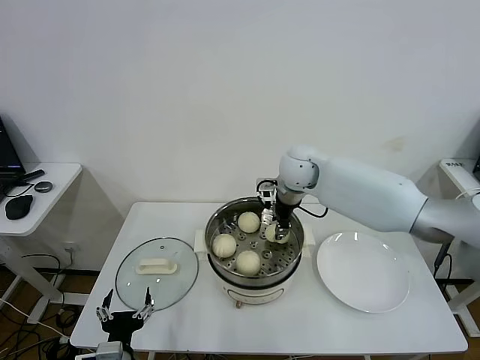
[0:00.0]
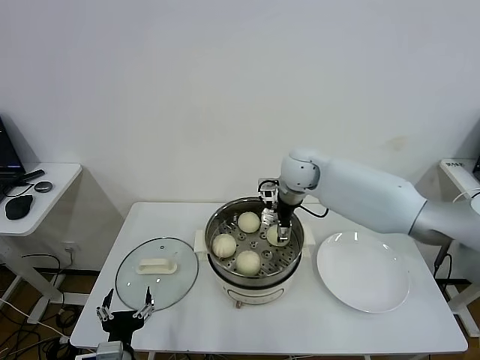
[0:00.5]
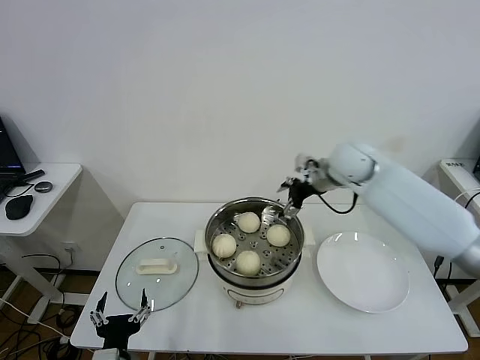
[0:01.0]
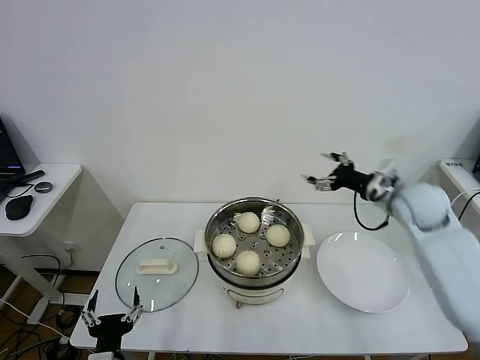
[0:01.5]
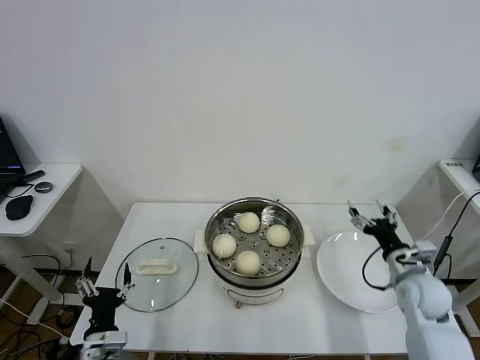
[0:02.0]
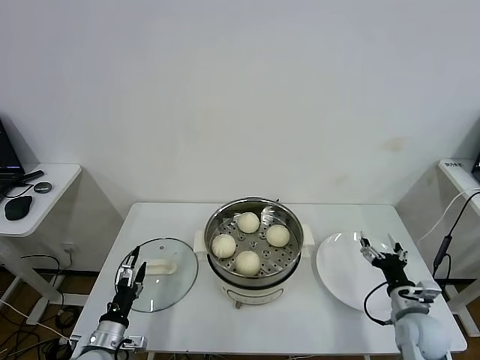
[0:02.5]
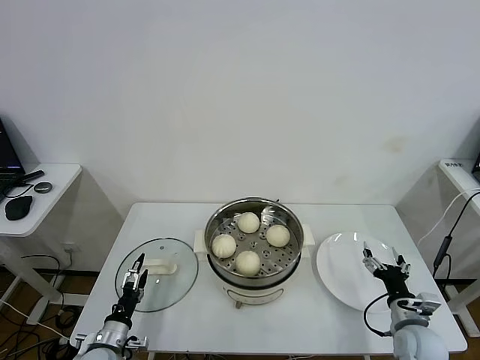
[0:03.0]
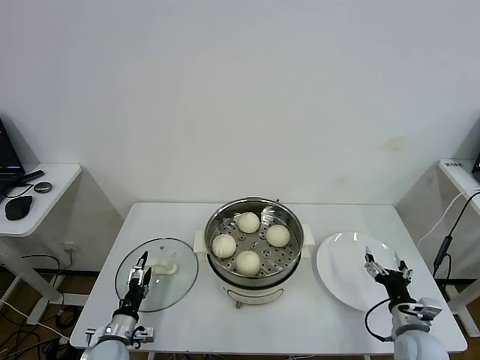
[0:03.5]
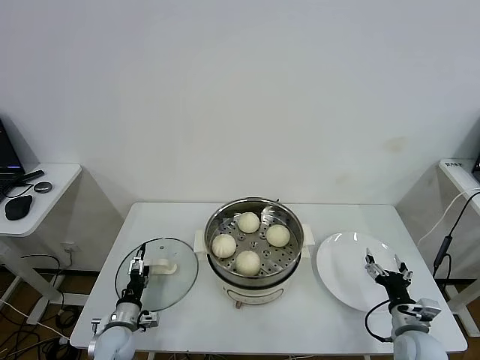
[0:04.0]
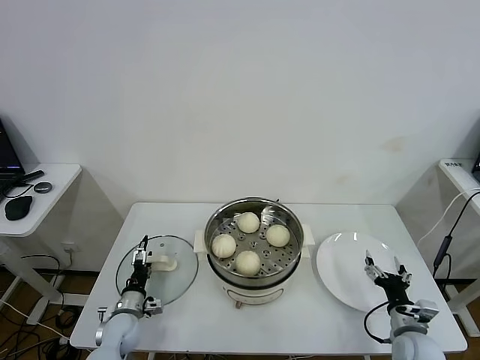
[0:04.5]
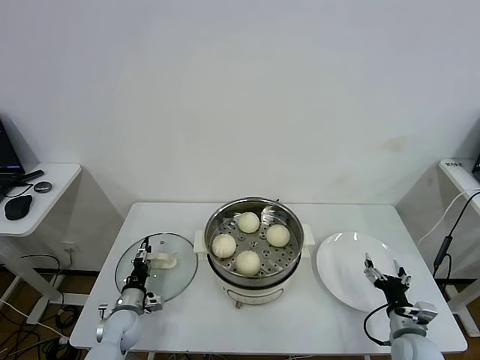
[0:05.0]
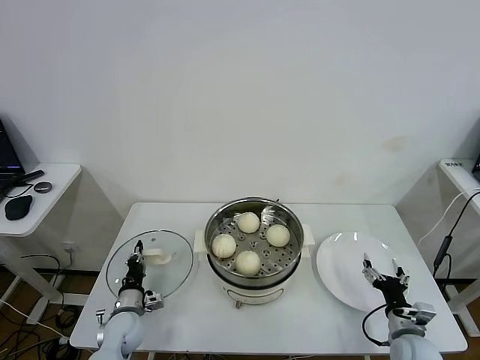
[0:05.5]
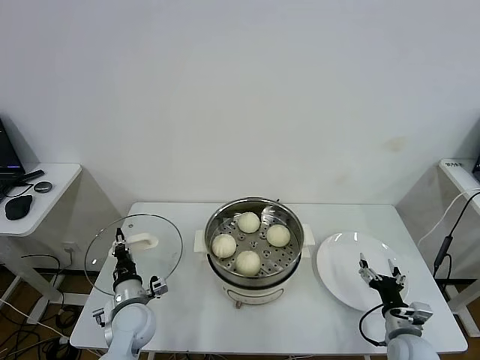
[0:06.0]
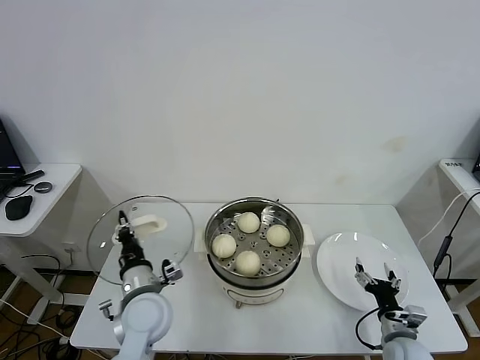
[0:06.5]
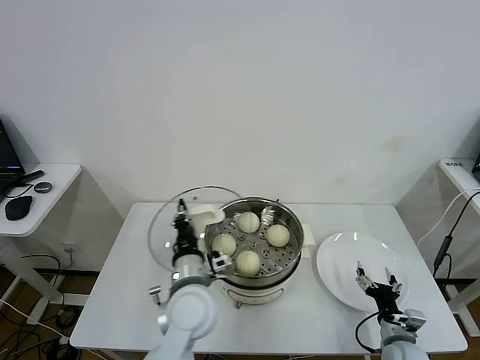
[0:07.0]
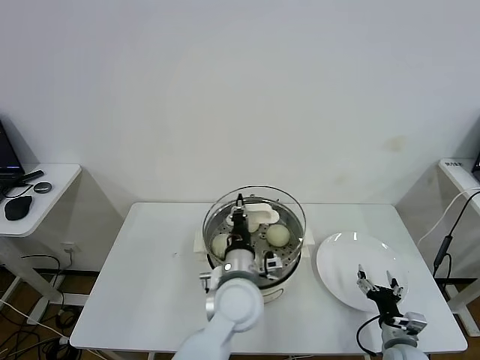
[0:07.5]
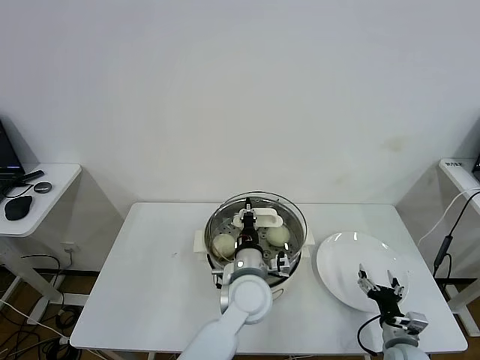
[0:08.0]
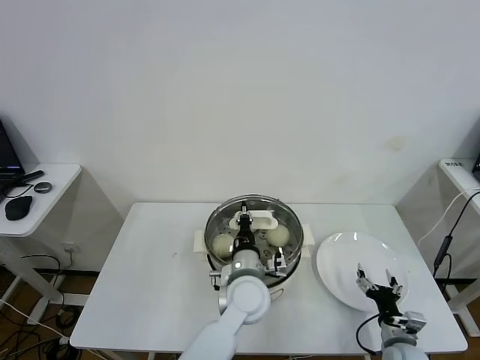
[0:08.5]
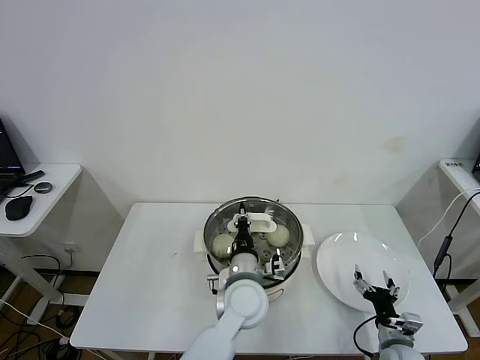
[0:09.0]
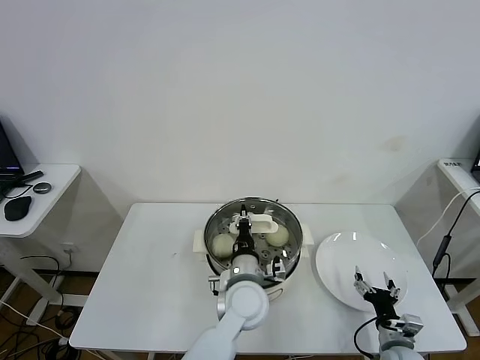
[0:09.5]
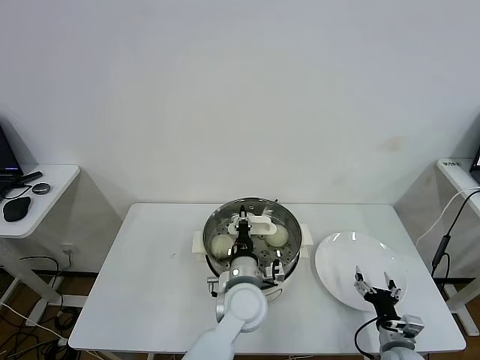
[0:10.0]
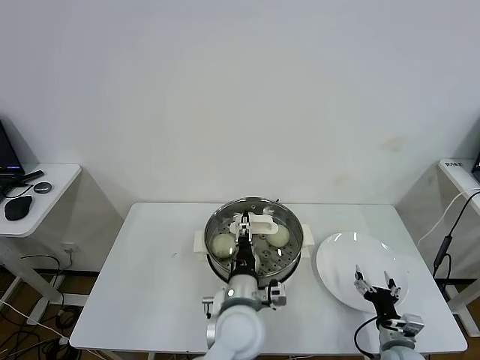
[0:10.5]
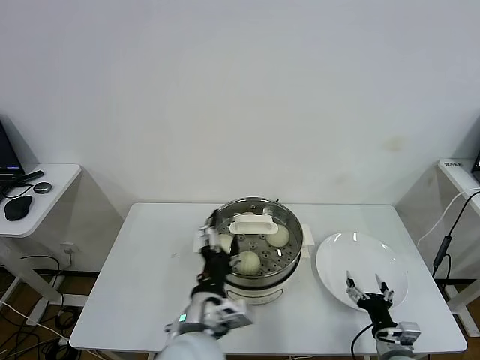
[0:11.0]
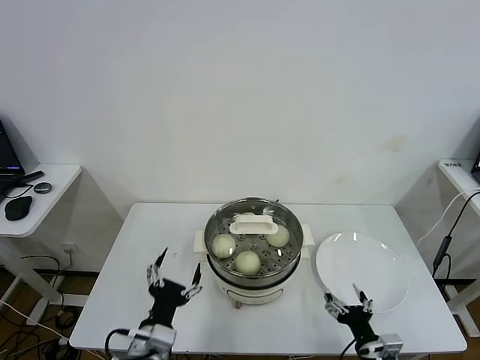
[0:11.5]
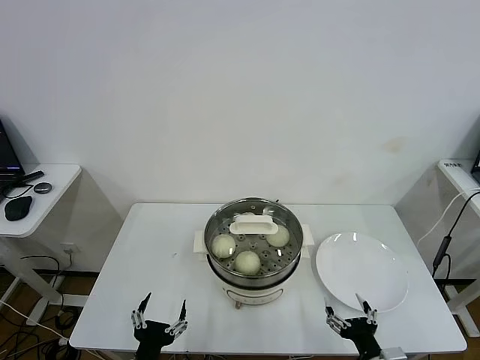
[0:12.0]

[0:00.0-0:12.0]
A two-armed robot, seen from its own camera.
Task of the whole recording: take steamed baozi put them in steamer.
Step, 1.0 to 5.5 s: Grasp the pot lid with left gripper.
Step, 6.0 to 10.5 s: Place the pot lid on the steamer with left gripper.
0.0 to 2.0 s: The right gripper is displaced to the right, backward and downward by approximately 40 cm, and opens.
2.0 to 4.0 s: The right gripper moves backward and downward, approximately 15 cm; the left gripper travels downward and forward by roughly 15 cm.
4.0 to 6.0 s: The left gripper goes approximately 10 cm upward and to the right, and closes its fingers.
6.0 to 8.0 s: The left gripper moves to the right and upward, about 30 cm.
8.0 to 10.0 s: The grippers move only a little.
10.0 to 12.0 s: The left gripper heads to the left and backward, covering roughly 30 cm, and opens up, while the right gripper heads backward, to the left and upward, covering roughly 10 cm.

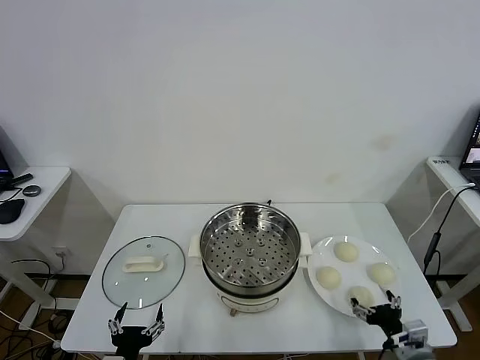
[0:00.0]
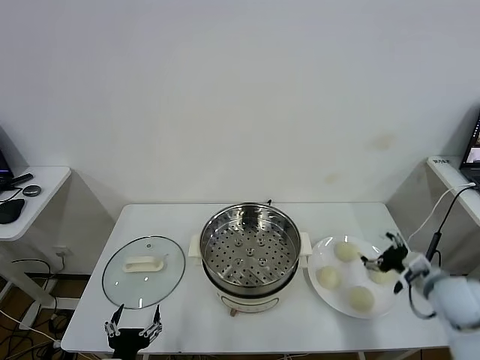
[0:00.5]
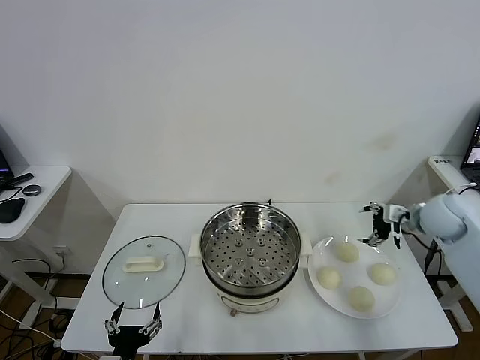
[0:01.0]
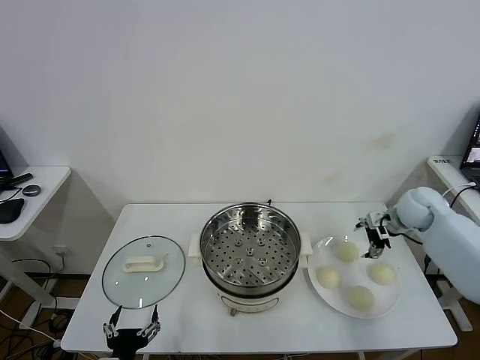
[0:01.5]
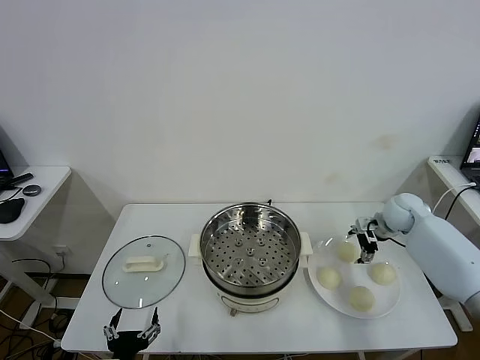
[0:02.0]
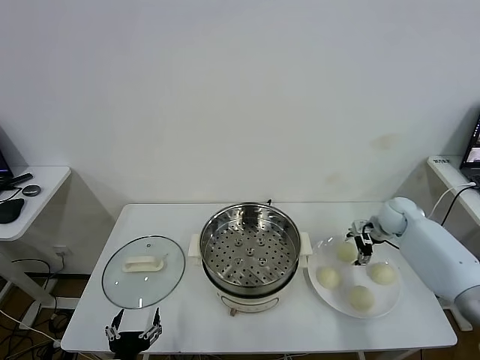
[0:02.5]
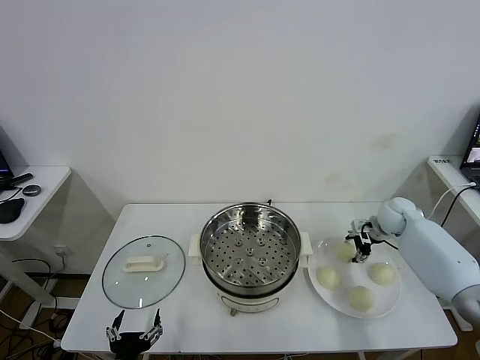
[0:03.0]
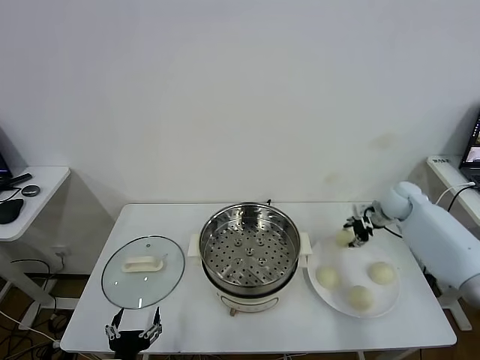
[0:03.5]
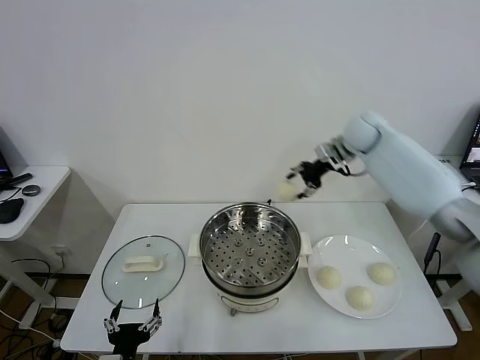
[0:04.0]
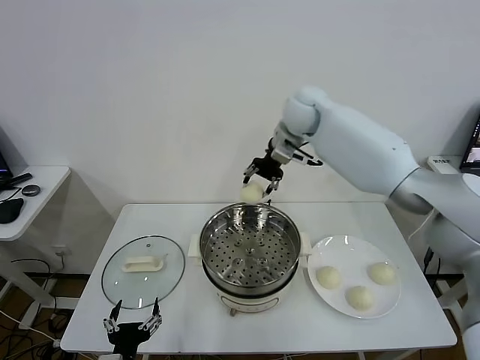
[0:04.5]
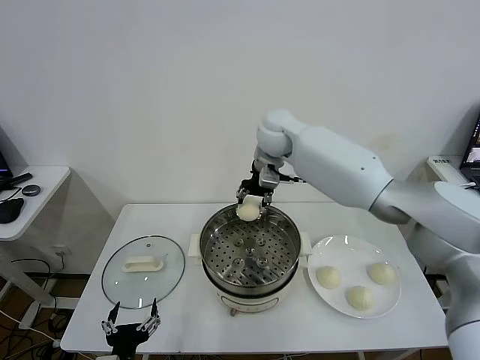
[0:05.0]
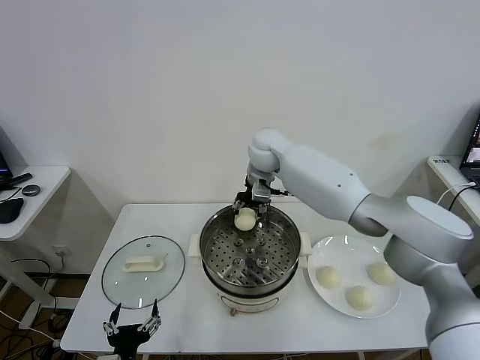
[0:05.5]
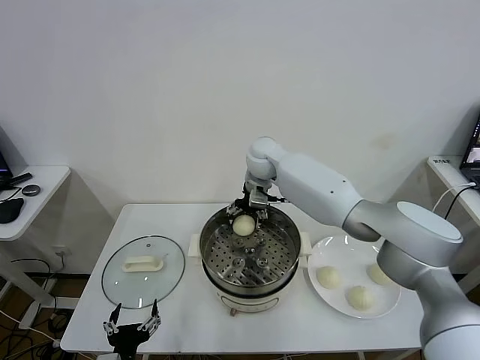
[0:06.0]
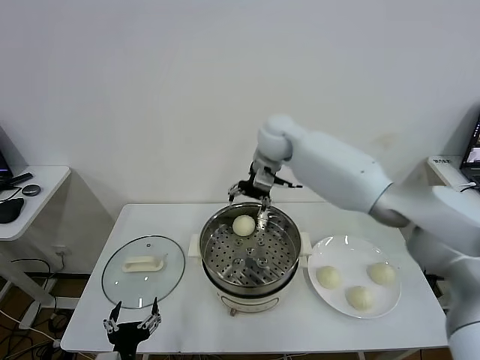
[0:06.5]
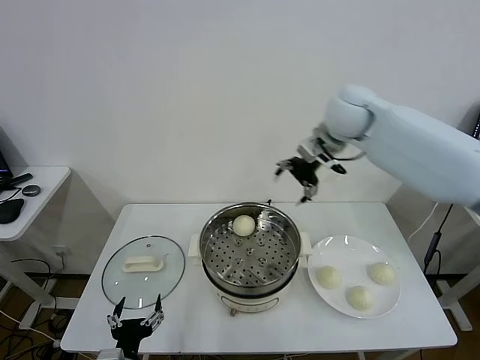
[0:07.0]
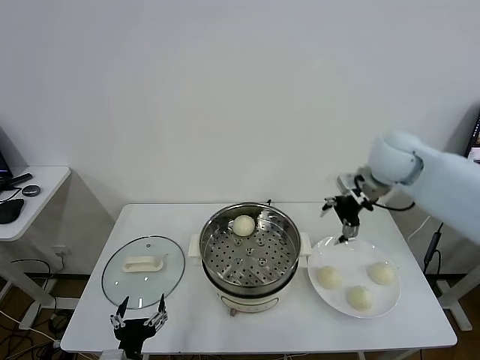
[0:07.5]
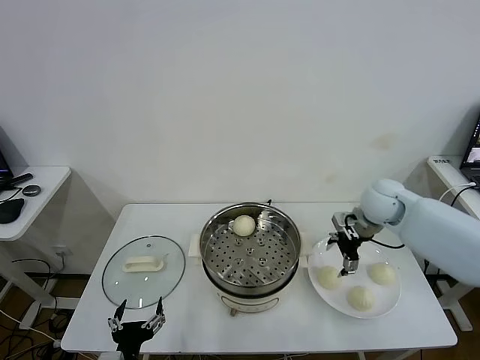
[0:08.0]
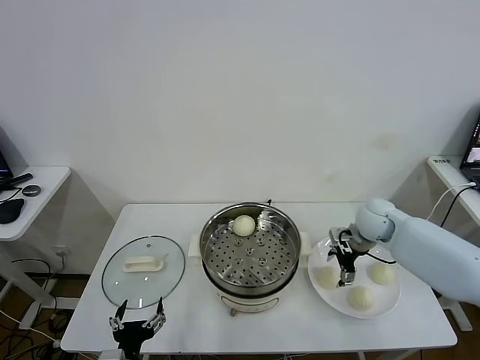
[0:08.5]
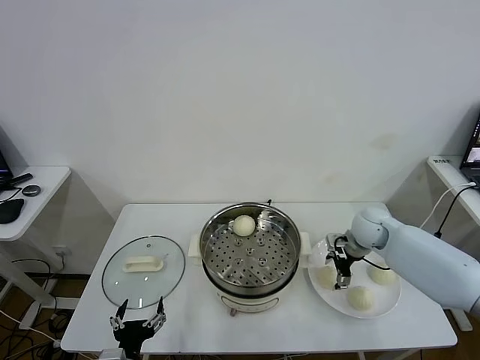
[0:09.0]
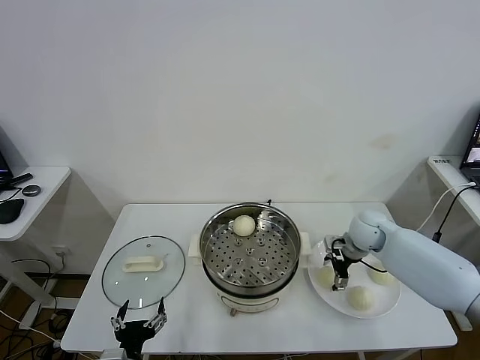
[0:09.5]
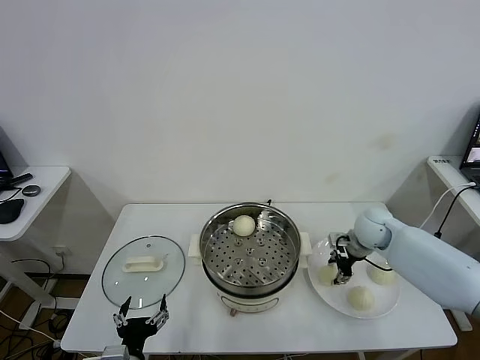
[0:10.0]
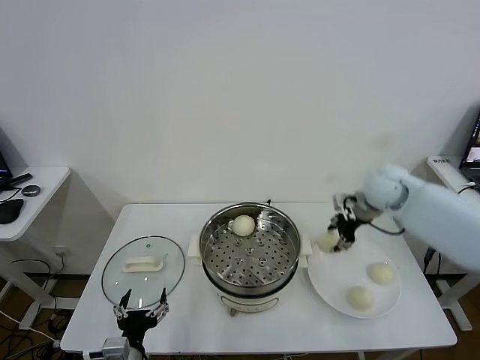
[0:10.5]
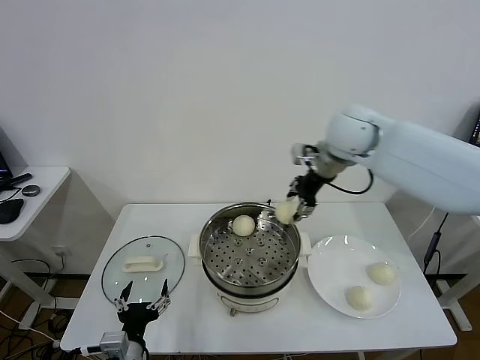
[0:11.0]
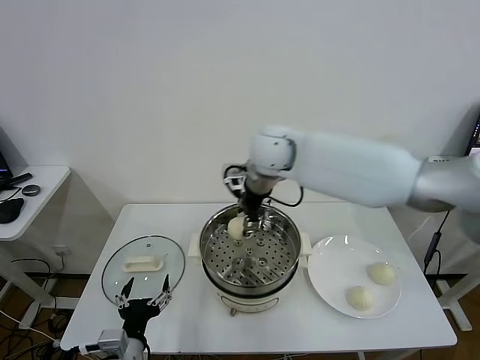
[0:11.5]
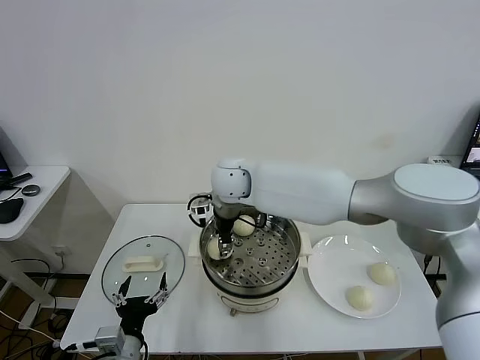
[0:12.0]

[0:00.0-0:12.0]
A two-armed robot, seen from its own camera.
Task of the whole recording: take steamed baozi put them in steamer.
Step, 0.0 to 3.0 s: Grasp the baozi in the plate with right gripper.
Step, 3.5 to 6.0 s: Place the baozi on the steamer with right gripper.
Step, 6.5 to 9.5 s: Grasp the baozi in the plate with right gripper.
2.0 to 4.0 s: The right gripper goes some 25 cm upward, to the left and forward, and closes its fingers.
4.0 to 6.0 s: The right gripper moves to the left, roughly 20 cm, and opens.
6.0 to 8.0 s: The right gripper goes some 30 cm to the right and backward.
8.0 to 10.0 s: The right gripper is displaced downward by some 10 cm, and closes.
10.0 to 12.0 s: The right gripper is displaced to the left by about 35 cm.

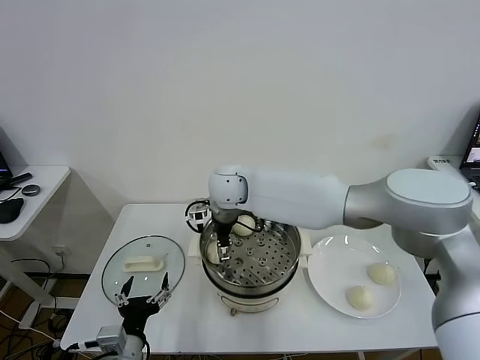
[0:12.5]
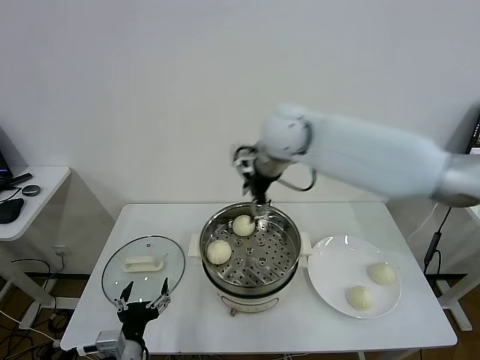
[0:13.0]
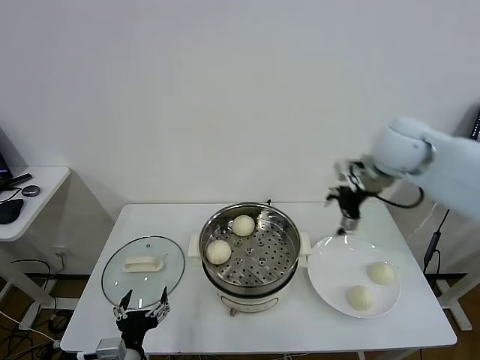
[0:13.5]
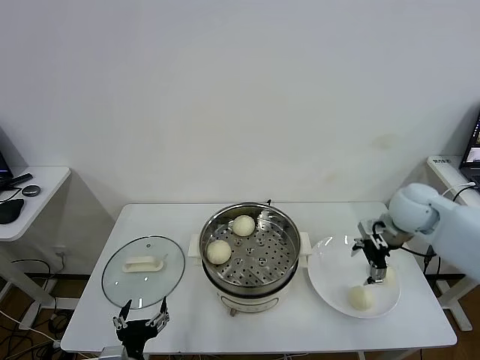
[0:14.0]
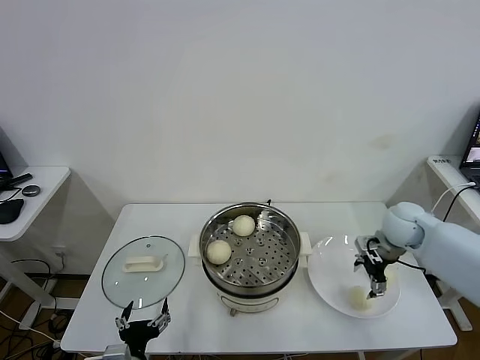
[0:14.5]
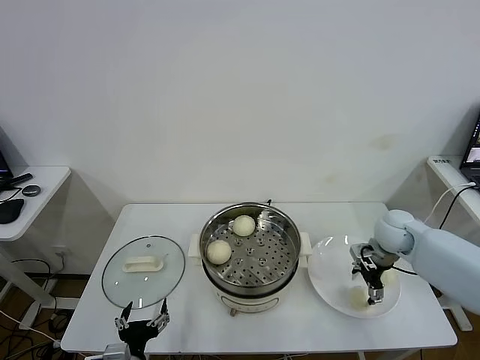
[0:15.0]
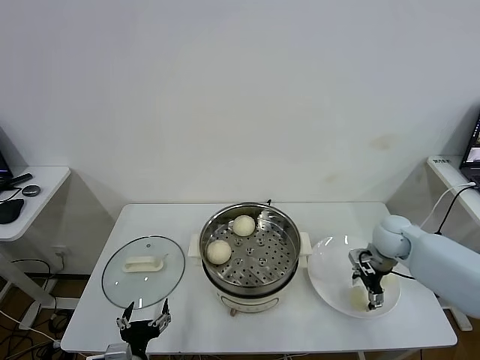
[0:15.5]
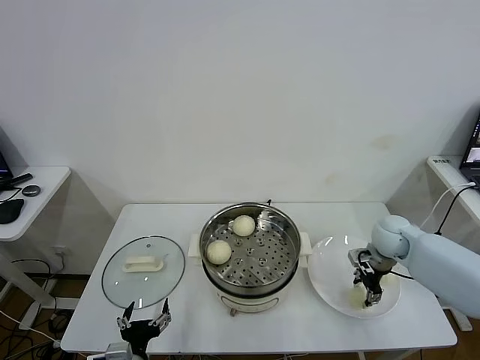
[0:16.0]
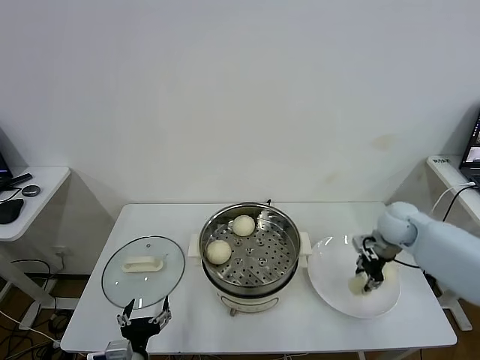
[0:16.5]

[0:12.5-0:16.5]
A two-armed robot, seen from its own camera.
Task of the whole recording: take steamed baozi put them in steamer.
Step, 13.0 to 16.0 s: Grasp the baozi in the plate with right gripper.
12.5 to 14.5 s: The right gripper shifts roughly 40 cm to the right.
14.5 to 16.5 s: The right gripper closes its fingers.
